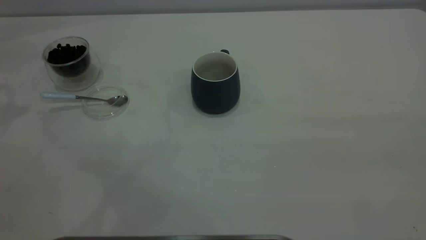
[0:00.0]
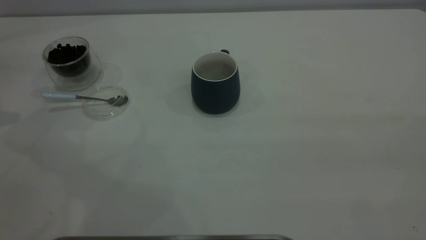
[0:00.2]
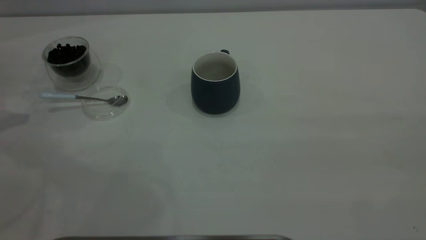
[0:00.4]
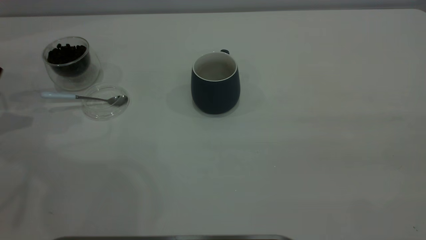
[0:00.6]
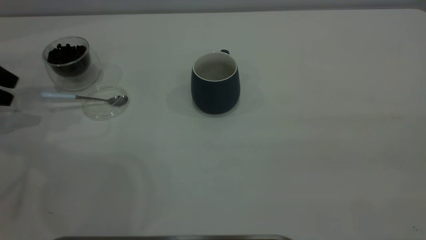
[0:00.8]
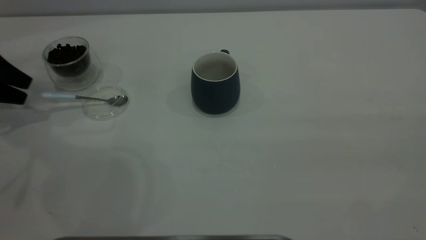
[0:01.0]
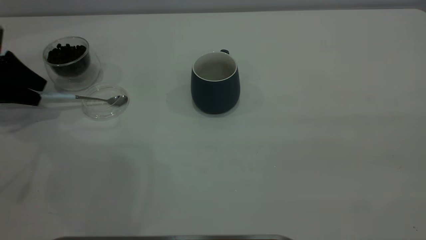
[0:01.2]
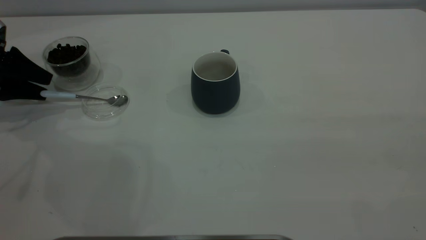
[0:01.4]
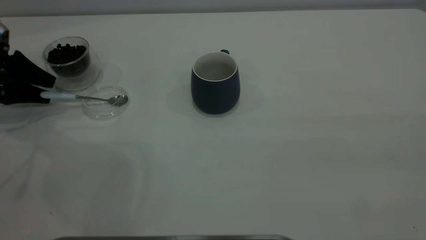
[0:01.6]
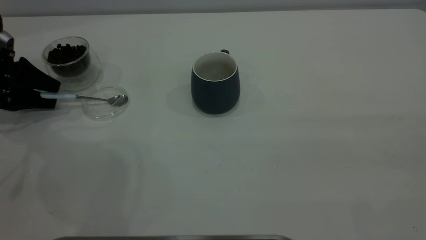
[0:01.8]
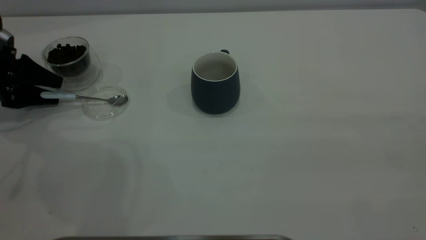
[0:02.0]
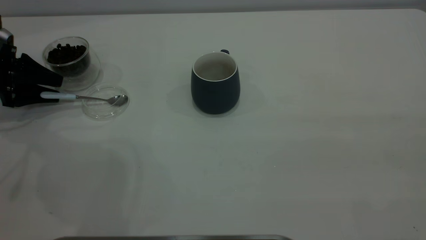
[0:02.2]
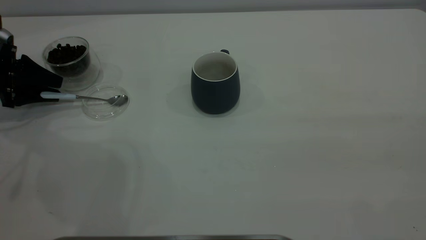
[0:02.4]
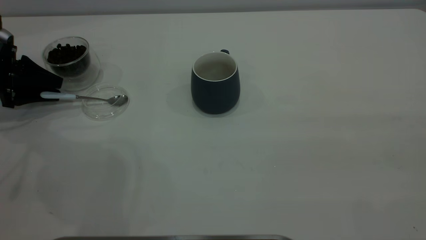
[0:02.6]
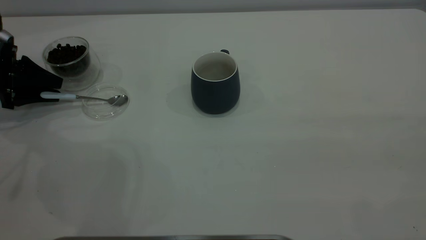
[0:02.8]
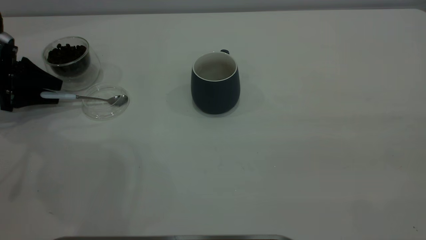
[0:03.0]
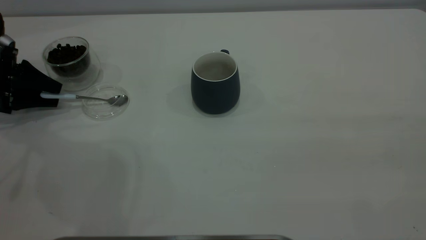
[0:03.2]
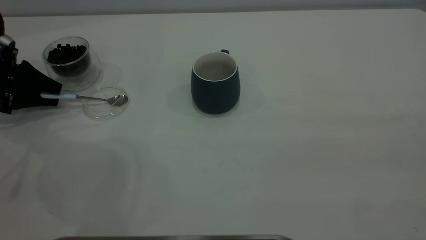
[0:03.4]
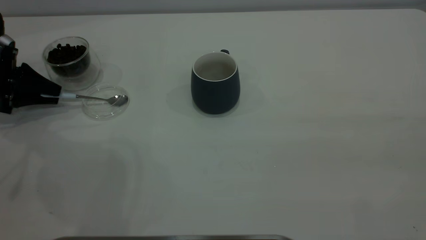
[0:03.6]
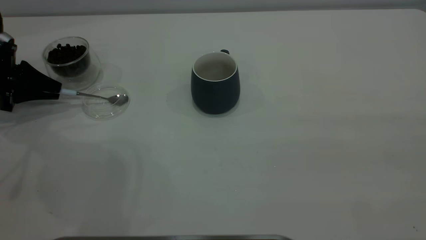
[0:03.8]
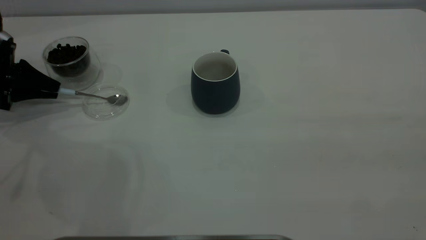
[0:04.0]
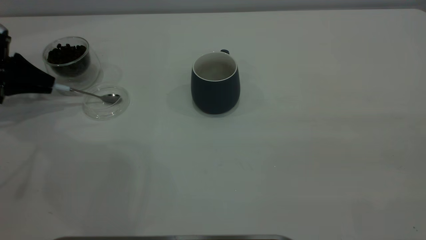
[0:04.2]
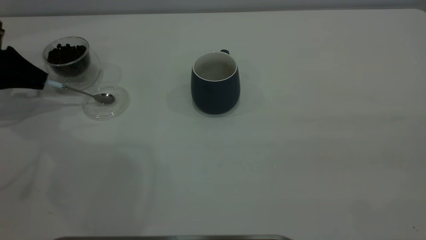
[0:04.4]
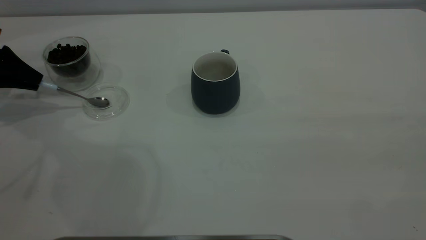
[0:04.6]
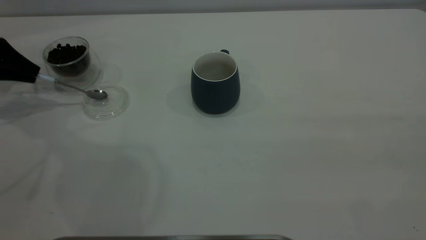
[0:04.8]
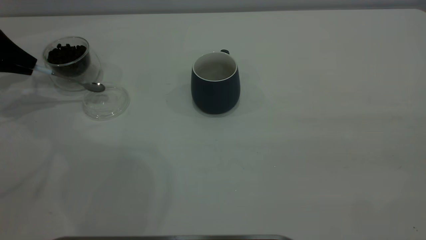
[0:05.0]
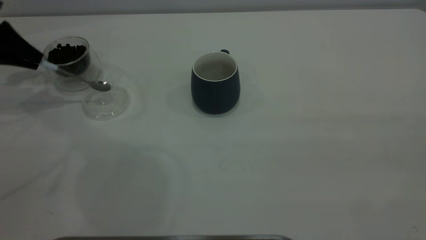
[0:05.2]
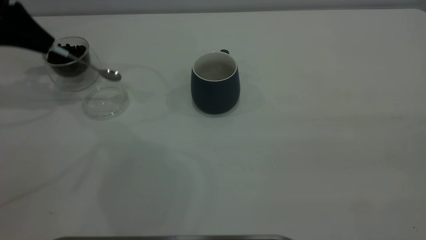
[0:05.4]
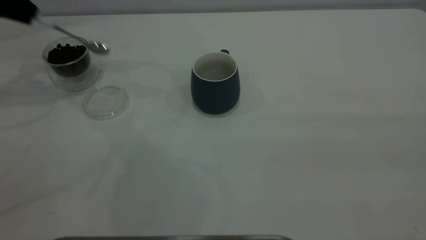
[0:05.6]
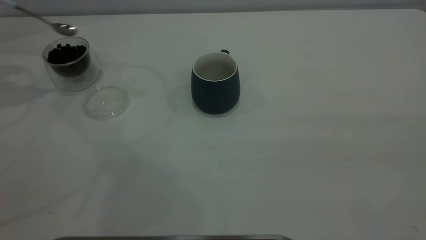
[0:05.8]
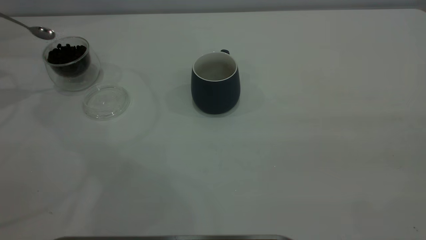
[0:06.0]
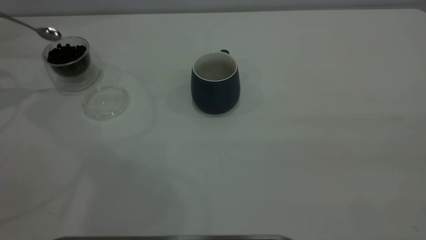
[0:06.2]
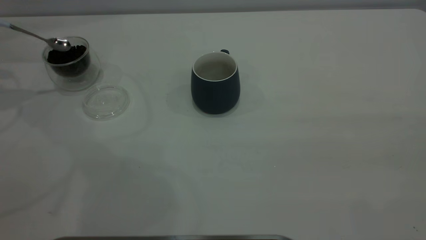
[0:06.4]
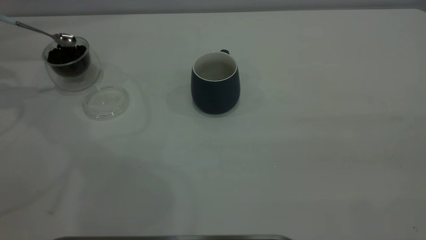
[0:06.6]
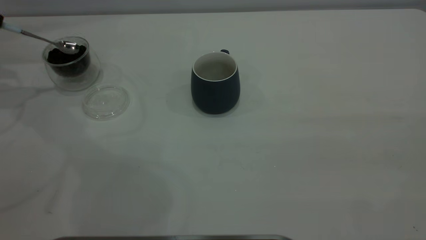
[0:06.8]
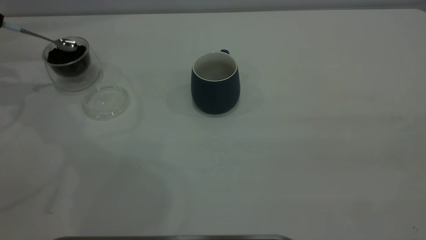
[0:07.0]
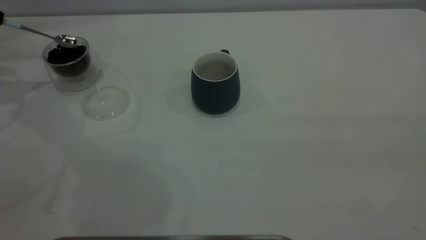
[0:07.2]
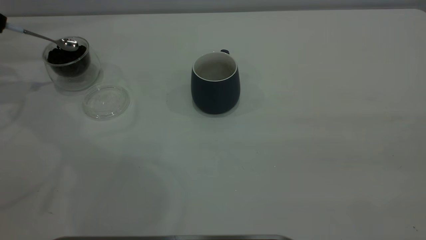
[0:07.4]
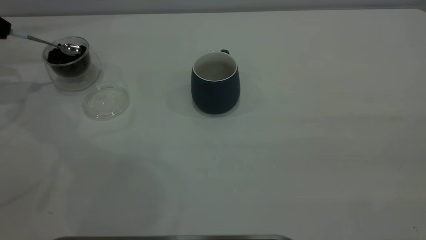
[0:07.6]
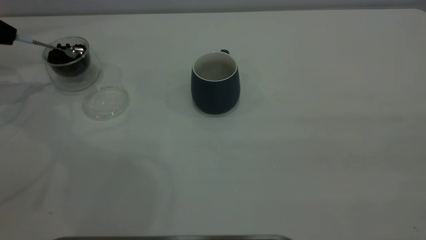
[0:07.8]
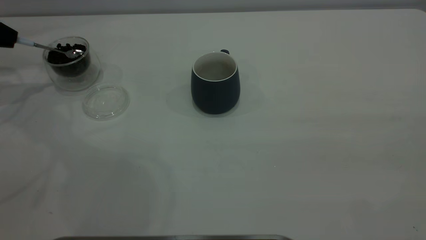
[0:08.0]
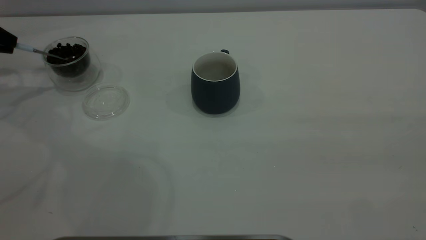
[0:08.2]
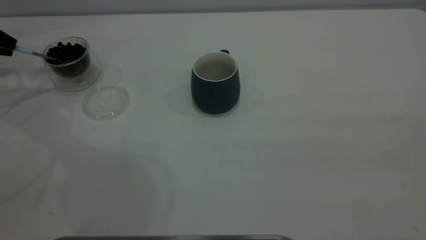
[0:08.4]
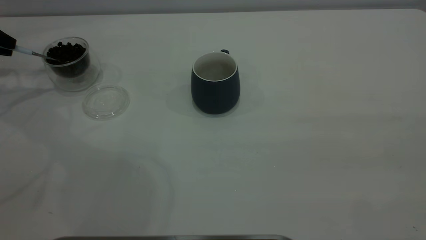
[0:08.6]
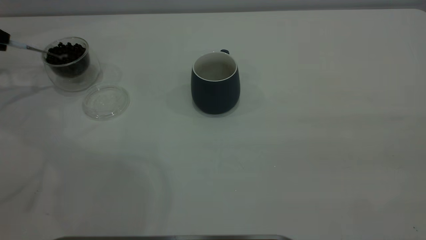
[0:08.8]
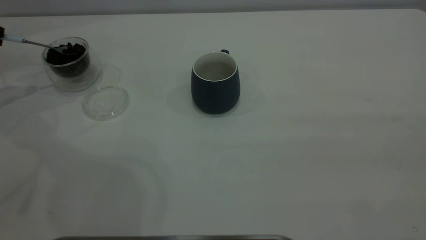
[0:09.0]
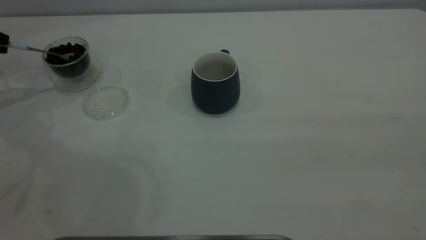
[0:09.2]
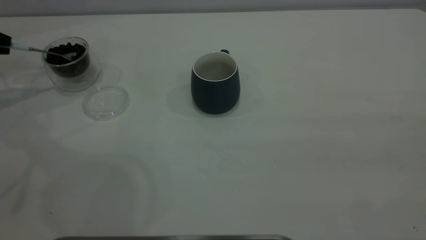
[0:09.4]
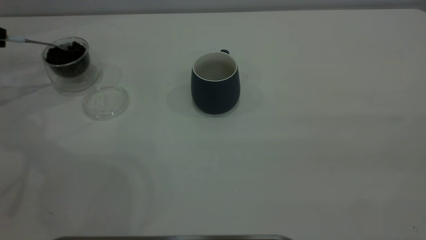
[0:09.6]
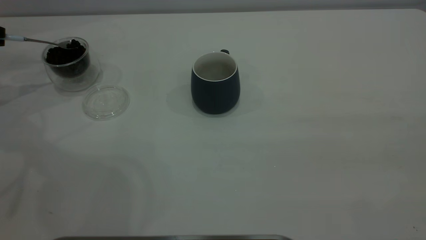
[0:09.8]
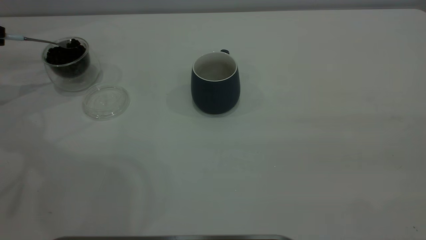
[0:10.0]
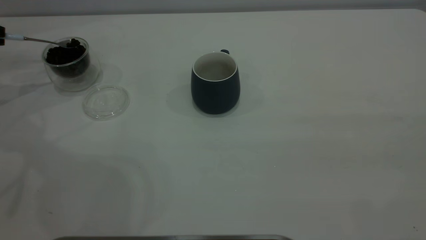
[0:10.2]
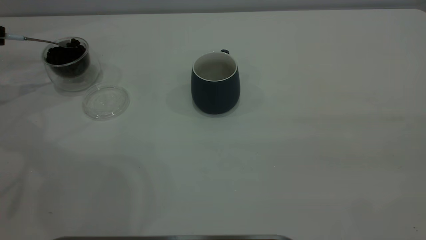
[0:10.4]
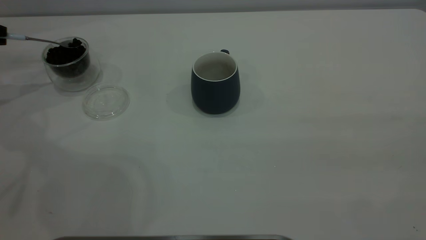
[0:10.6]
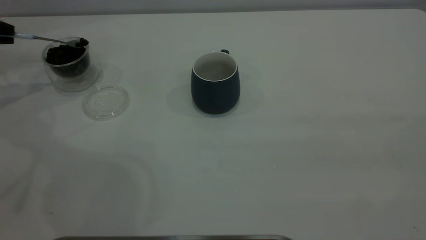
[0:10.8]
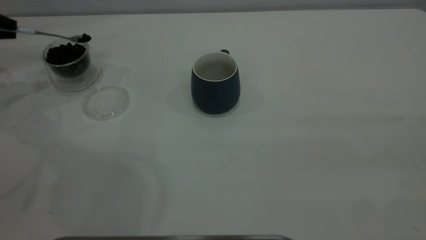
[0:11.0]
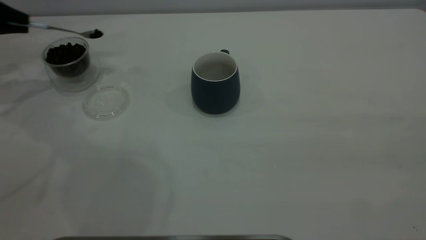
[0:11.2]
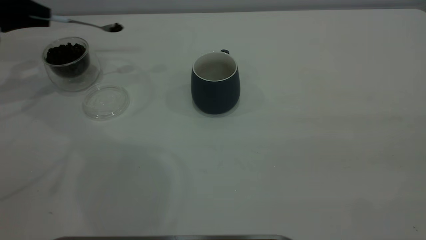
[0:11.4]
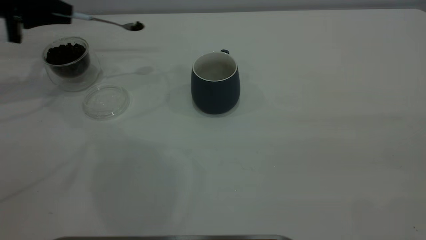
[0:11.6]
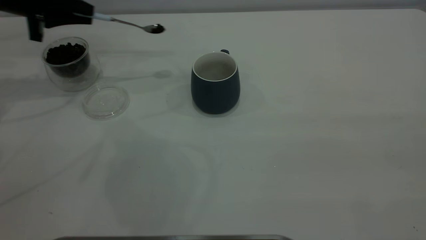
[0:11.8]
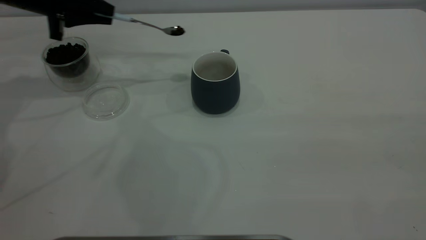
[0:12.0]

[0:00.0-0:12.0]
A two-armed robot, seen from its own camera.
Task of the whole recording: the right gripper place the grey cup in the center of the table, the left gripper take the blue spoon from the cup lid and scoop out the coffee beans from the coffee cup and put them into the grey cup, the left gripper put the spoon back into the cup lid.
Step, 0:00.0 to 0:05.6: Pick up the spoon.
0:00.0 to 0:01.6: The left gripper is displaced downward by some 20 cm.
0:03.0 to 0:04.4: The left gripper closes up.
0:04.4 to 0:06.0: The left gripper travels upward by approximately 15 cm.
0:06.0 to 0:07.6: The left gripper moves downward, about 10 cm.
0:10.4 to 0:12.0: The left gripper goes approximately 20 cm to the right.

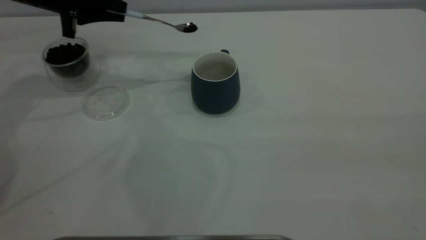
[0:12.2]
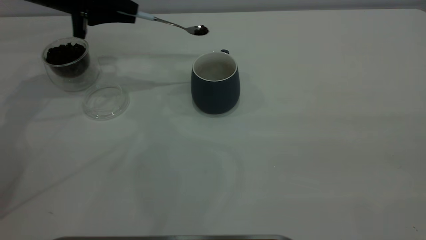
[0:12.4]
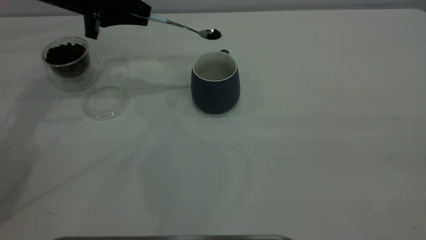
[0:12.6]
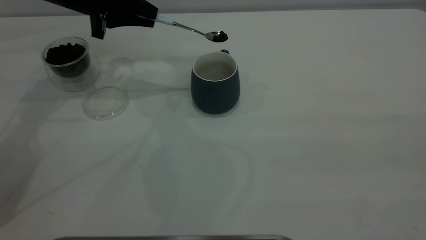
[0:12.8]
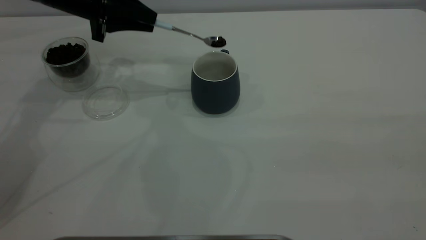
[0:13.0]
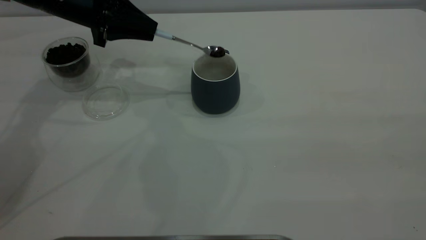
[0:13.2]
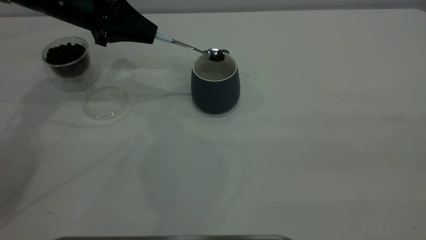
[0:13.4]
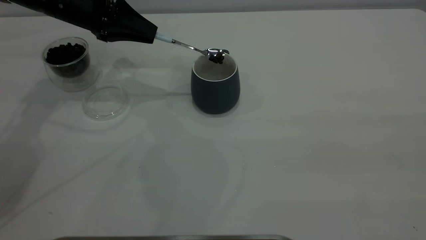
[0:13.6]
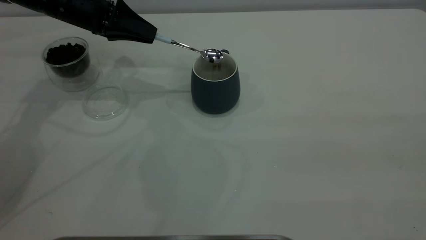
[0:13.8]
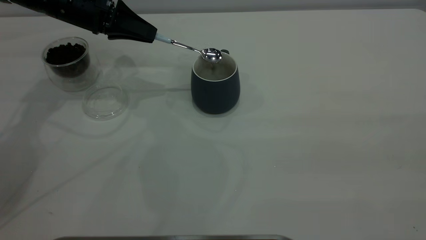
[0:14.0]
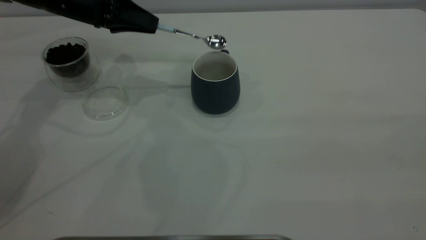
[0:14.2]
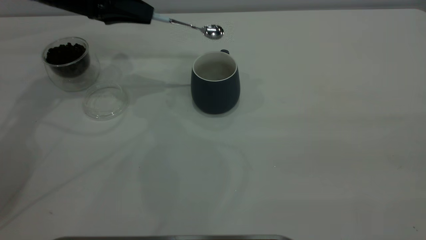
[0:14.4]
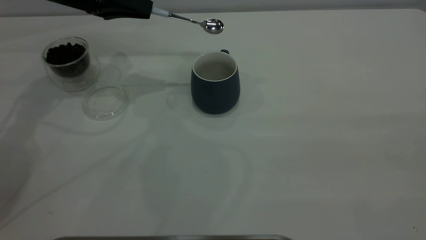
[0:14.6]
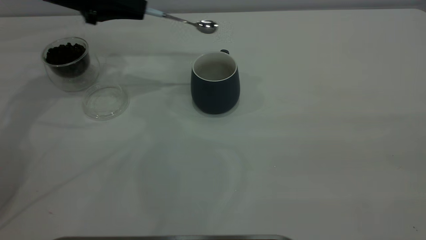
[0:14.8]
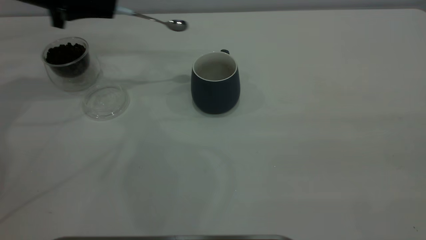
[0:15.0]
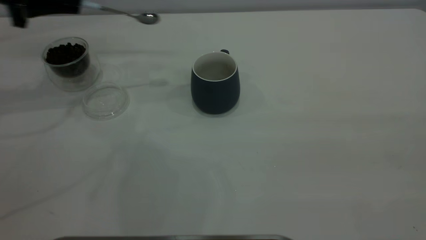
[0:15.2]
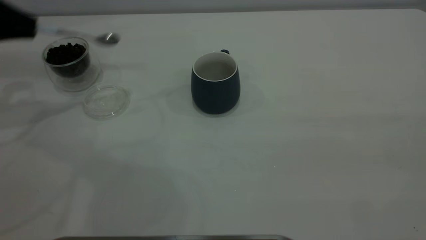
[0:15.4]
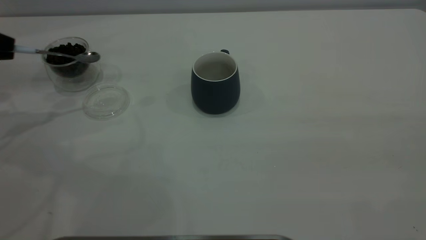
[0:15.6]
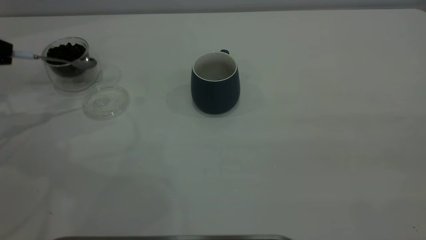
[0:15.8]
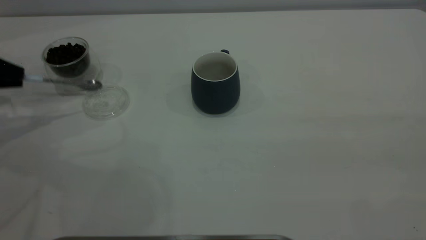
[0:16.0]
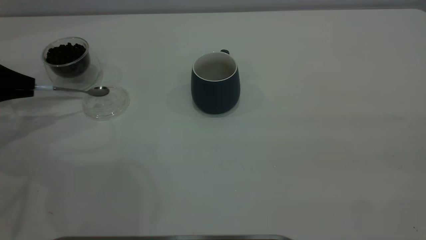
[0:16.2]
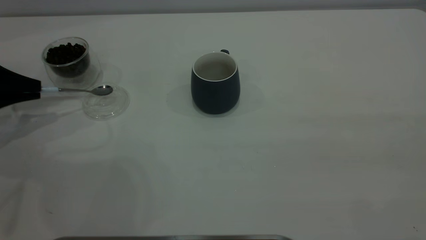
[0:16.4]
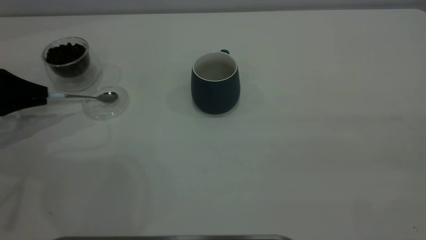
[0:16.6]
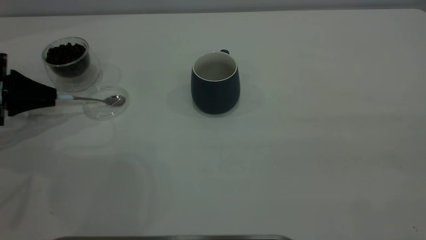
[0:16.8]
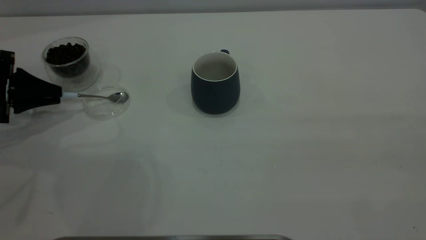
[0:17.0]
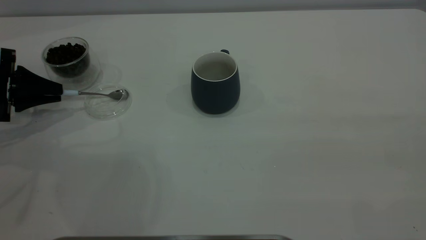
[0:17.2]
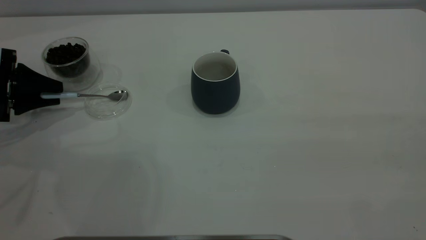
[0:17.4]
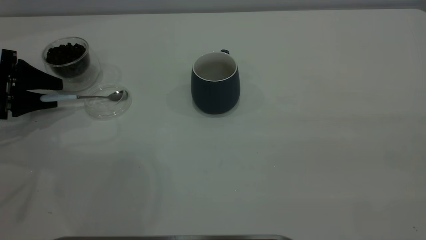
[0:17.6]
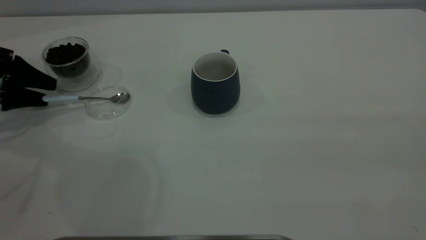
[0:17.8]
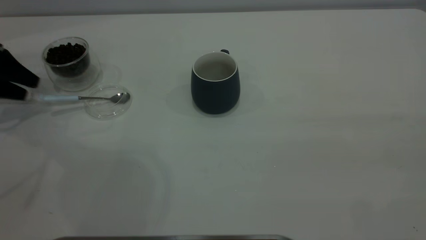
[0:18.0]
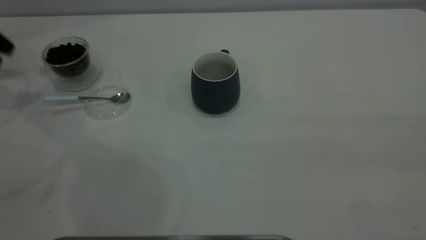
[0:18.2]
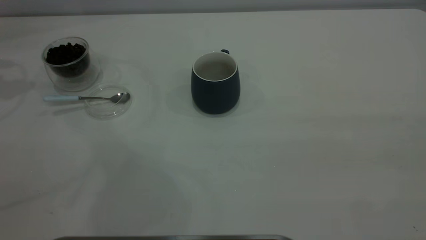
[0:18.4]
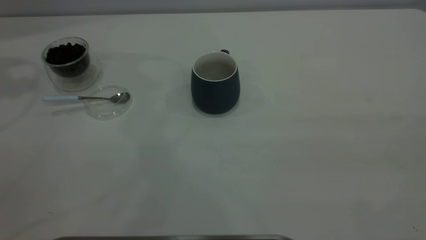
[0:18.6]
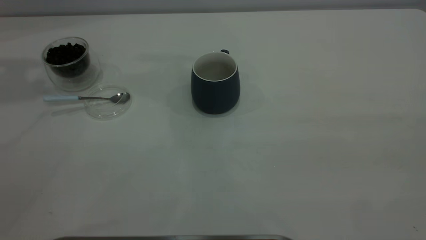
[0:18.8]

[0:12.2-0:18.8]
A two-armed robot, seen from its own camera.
Task of the whole recording: the right gripper place the grey cup in the center of the table, the left gripper take the blue spoon from the cup lid and scoop out the coffee beans from the coffee cup and put them into the grey cup, the left gripper put the spoon back into the cup lid.
Step, 0:12.2 to 0:14.2: Scoop a spoonful of beans into the cup.
Step, 0:14.6 to 0:18.0: Place the spoon back in its original place.
0:13.8 to 0:15.4: The left gripper travels to the left and backward by approximately 20 cm.
0:15.4 to 0:17.2: The left gripper goes approximately 10 cm downward.
0:17.2 to 0:18.8: The left gripper is displaced upward by about 35 cm, and opens its fingers.
